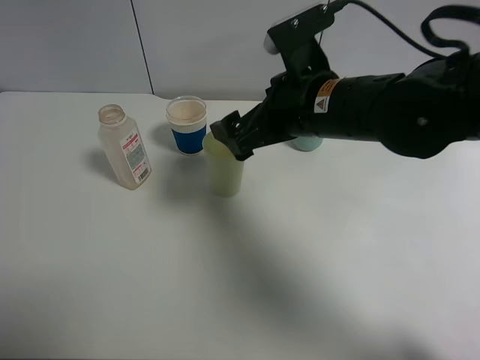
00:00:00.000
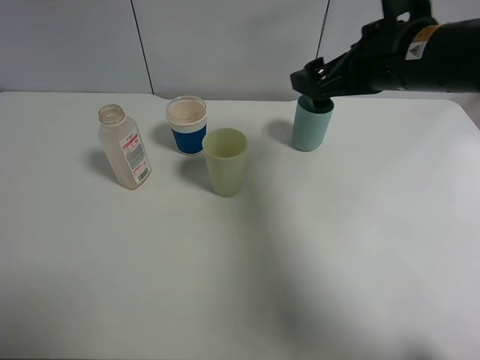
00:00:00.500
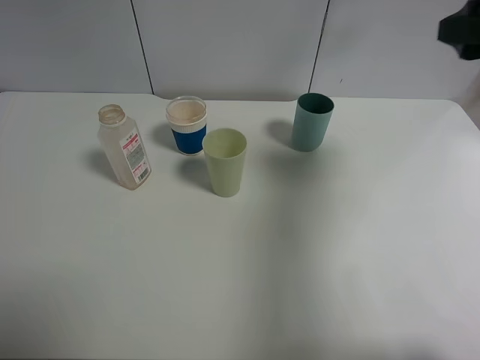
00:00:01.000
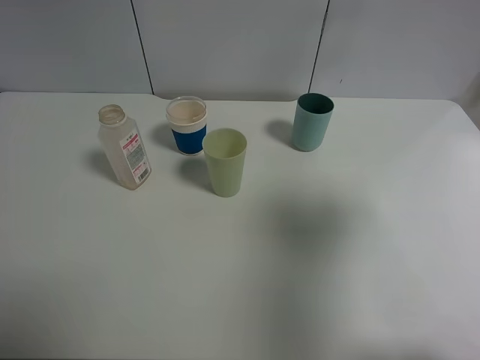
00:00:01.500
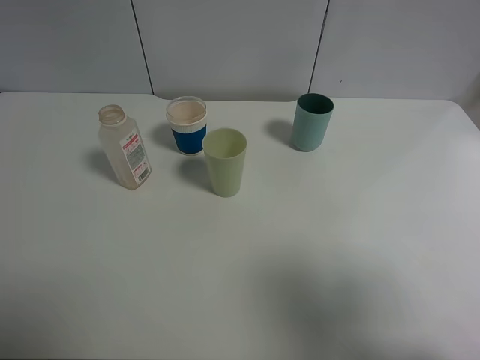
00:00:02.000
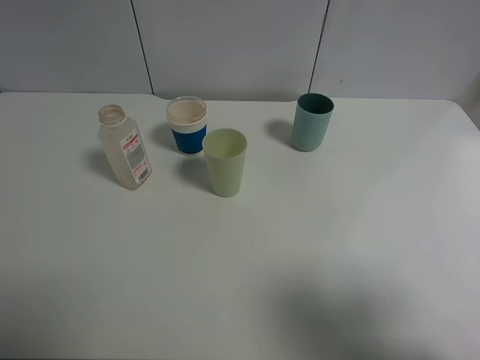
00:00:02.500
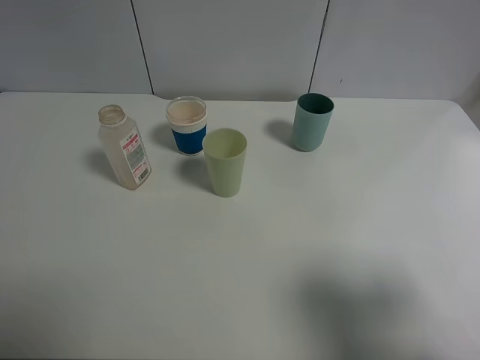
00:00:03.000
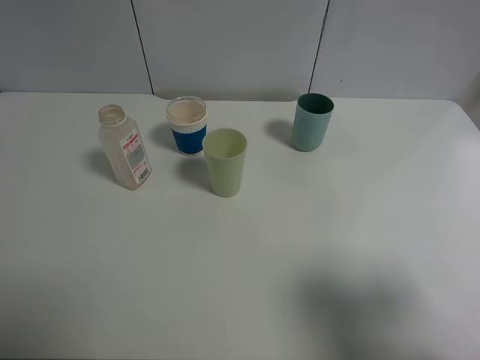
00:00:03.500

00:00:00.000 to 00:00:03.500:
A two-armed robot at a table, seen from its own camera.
Task of the whole recording: use a clamp to hold the bottle of the drink, pour the beverage into a random cup, then clamp the cup containing the drink and pour the drink into another random cup.
00:00:00.000 to 00:00:02.000: The right gripper goes about 35 cm backward, to the right and upward.
00:00:02.000 to 00:00:03.500: The right gripper moves downward, approximately 5 cm.
